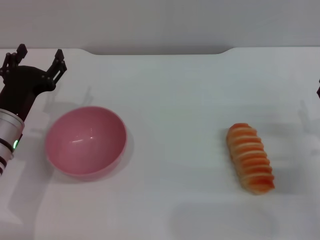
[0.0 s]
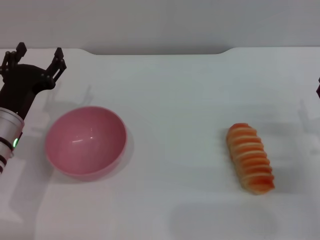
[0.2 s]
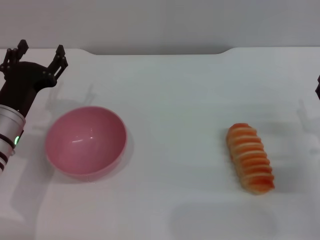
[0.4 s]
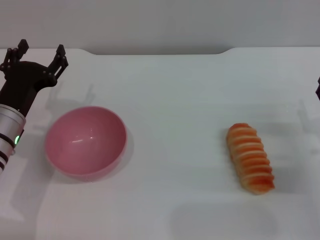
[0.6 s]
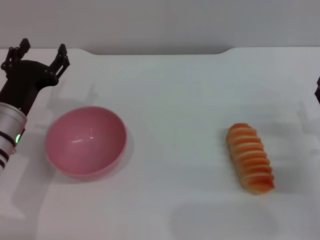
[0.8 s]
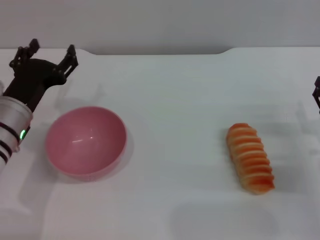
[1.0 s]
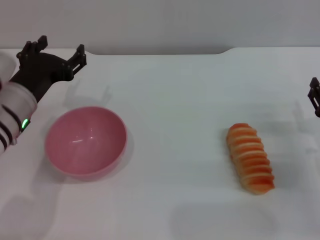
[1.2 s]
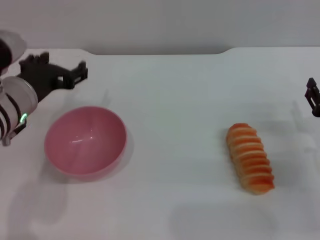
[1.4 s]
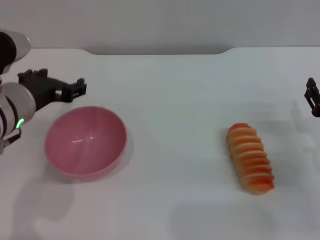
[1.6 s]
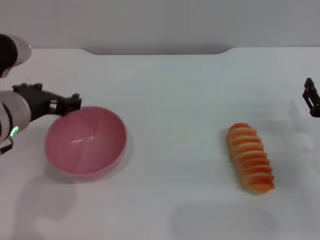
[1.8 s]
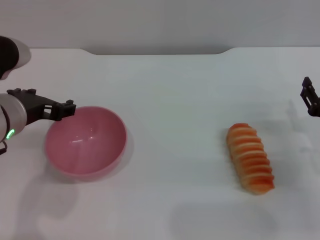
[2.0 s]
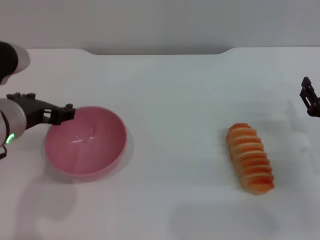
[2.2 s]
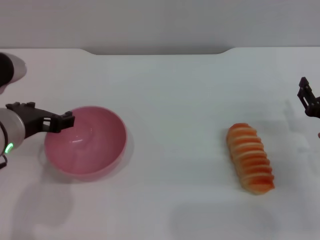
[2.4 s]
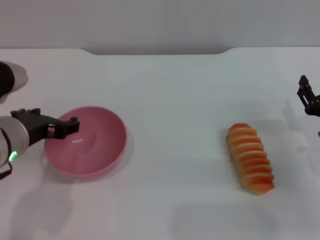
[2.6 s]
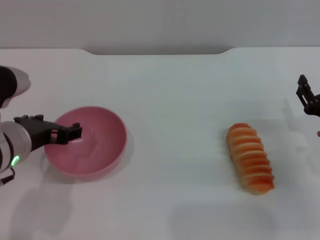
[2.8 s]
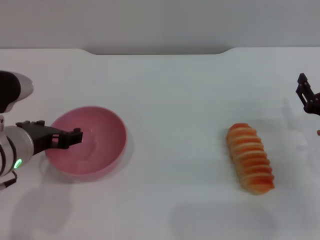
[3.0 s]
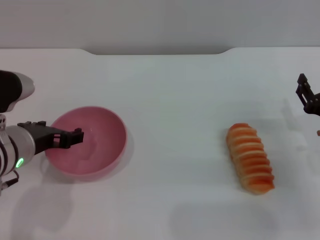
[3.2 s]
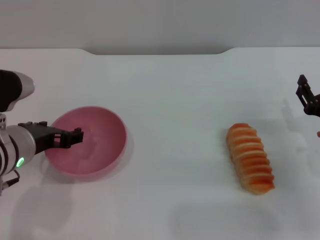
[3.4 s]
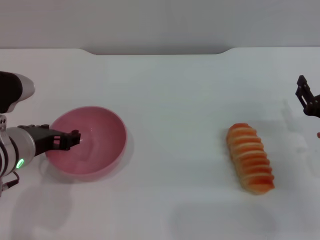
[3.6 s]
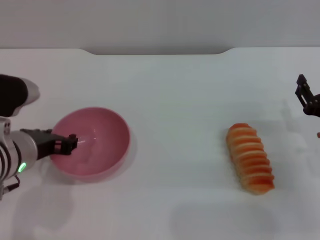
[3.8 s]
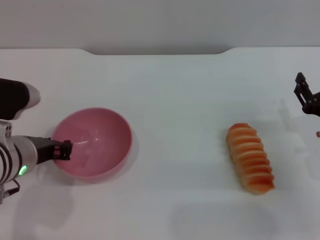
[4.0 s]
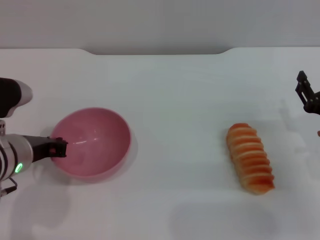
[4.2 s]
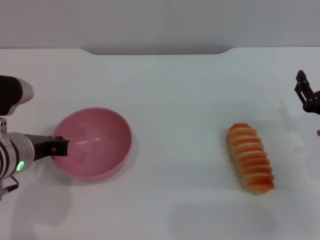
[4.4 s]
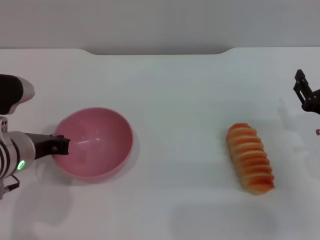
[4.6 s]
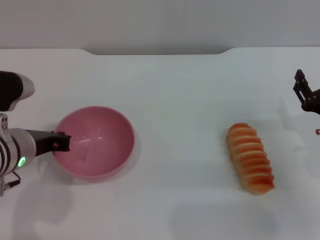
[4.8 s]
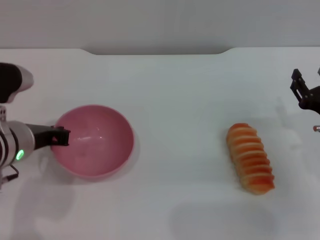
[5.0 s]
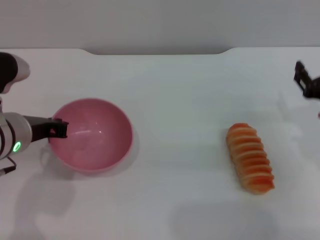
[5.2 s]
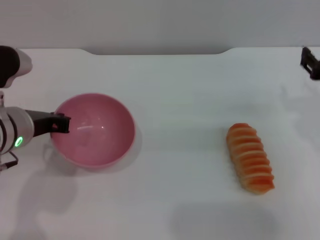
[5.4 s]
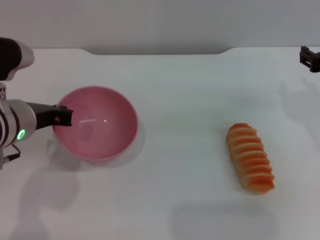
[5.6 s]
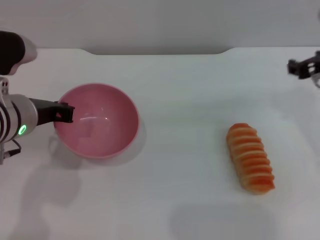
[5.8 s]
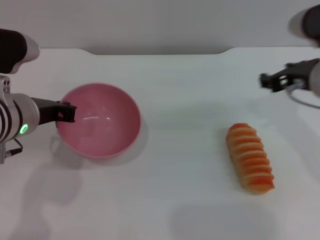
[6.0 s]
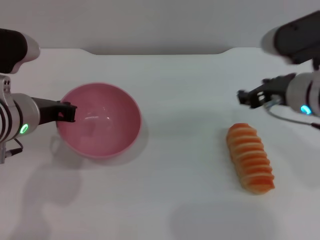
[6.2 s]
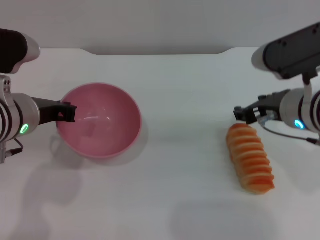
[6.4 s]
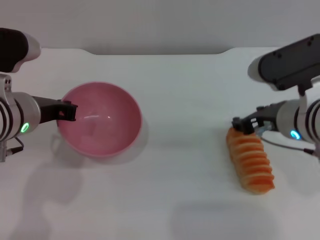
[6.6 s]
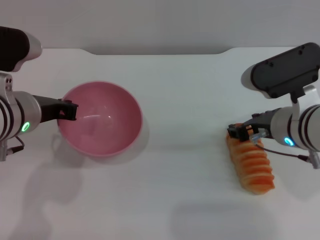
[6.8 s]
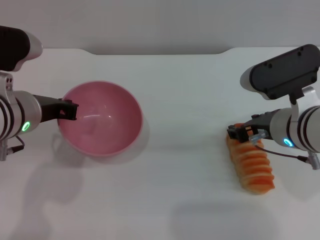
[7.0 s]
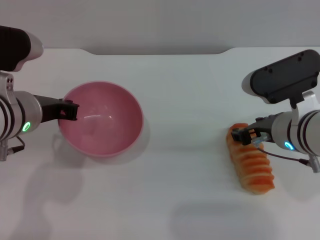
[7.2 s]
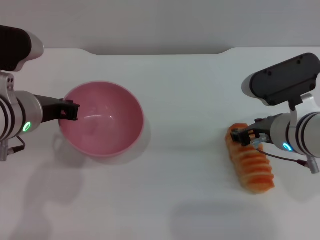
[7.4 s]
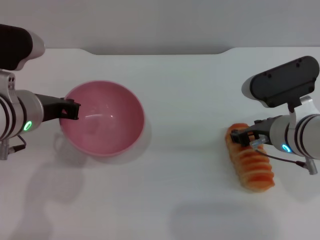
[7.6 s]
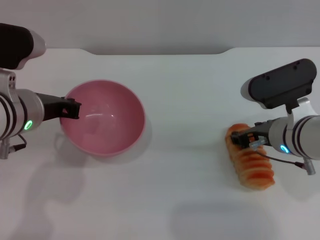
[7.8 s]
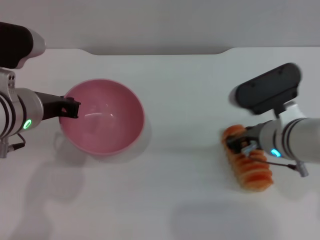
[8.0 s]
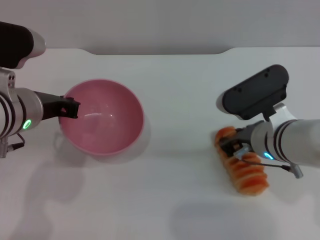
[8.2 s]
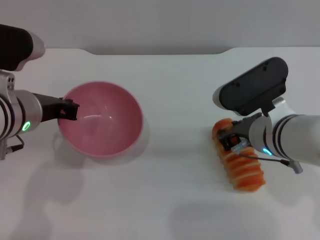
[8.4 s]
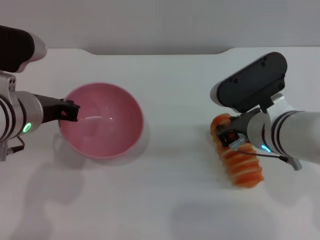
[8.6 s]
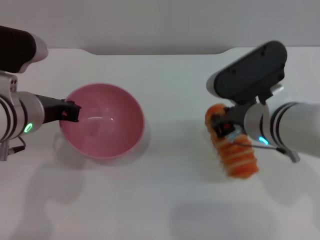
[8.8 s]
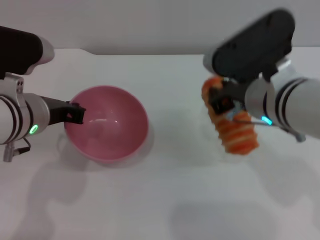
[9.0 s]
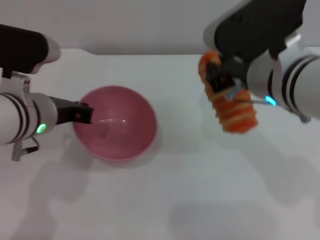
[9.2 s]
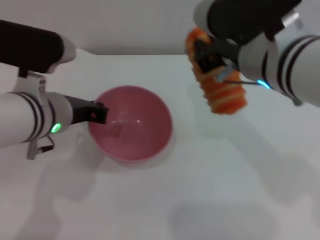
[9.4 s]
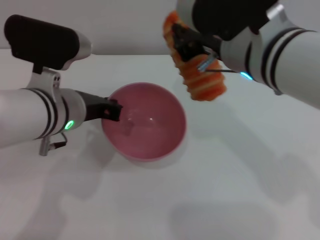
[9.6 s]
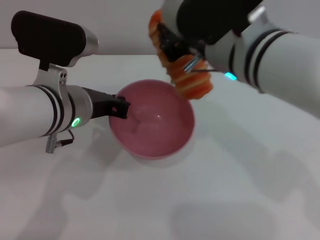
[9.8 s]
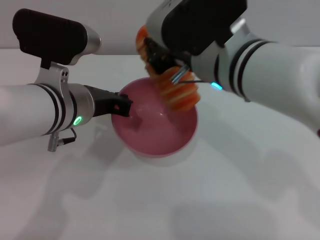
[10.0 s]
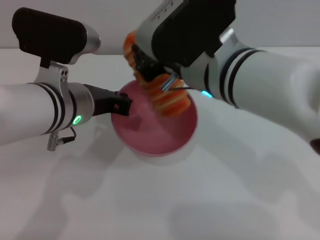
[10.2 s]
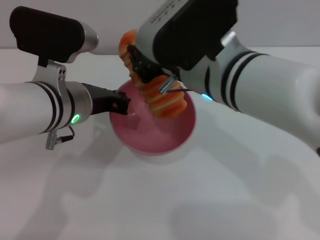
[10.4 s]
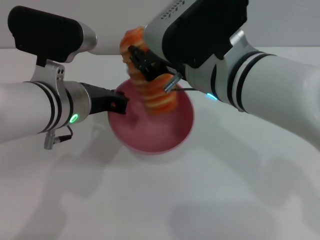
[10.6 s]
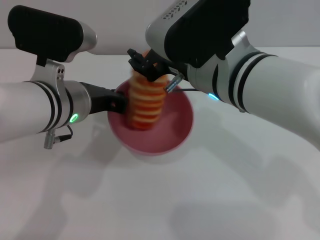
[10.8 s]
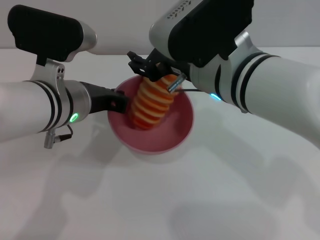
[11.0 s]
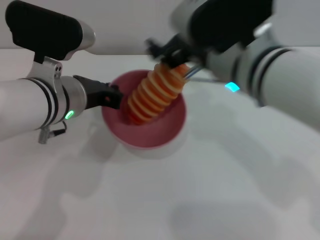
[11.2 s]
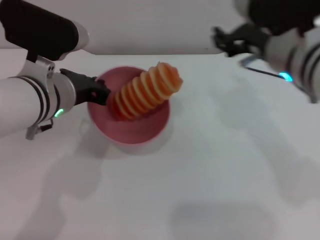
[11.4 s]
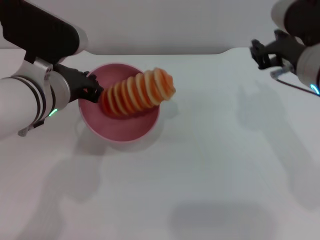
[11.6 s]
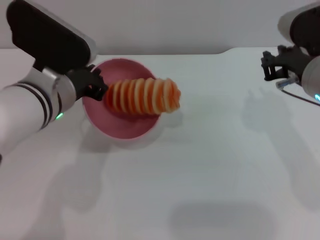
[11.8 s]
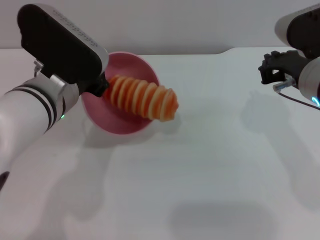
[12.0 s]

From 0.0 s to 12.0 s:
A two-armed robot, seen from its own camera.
Task of the whole recording: put the bread into the pink bowl and pour it out repeatedly.
Step, from 0.0 s to 5.8 s: Pick up the bowl with the left gripper.
Step, from 6.2 s to 9.0 s: Pick up the bread with the right gripper.
Step, from 9.2 s to 11.2 s: Place the bread into the bowl.
From 0.0 s to 1.6 s: The left gripper goes about 10 cm upward.
From 1.6 s to 3.0 s: The grippers stay close to where they were, moving slightly.
From 3.0 s to 4.4 s: The left gripper closes its fingers.
From 4.4 s to 6.0 s: The right gripper moves upward, forward and to the left, approximately 15 cm. The left gripper ends up roughly 5 cm from where it was.
From 6.0 s to 7.6 s: The right gripper travels downward by some 5 cm.
From 7.6 s to 9.0 s: The right gripper moves upward and to the left, about 10 cm, and closes up.
From 9.0 s to 10.4 s: The right gripper is displaced to the left by approximately 5 cm.
From 10.4 s to 12.0 s: The right gripper moves to the right, roughly 15 cm, and opens and closes again.

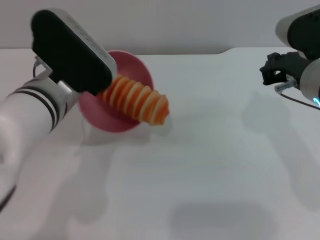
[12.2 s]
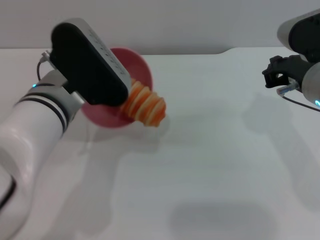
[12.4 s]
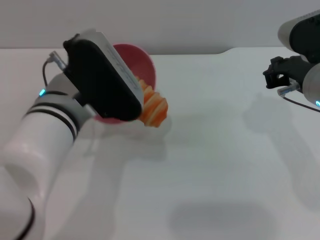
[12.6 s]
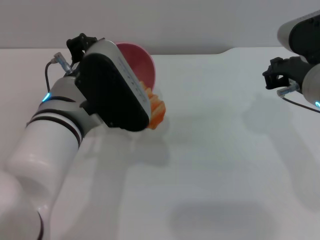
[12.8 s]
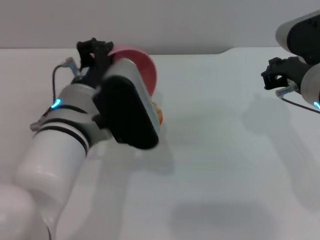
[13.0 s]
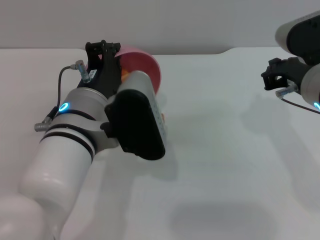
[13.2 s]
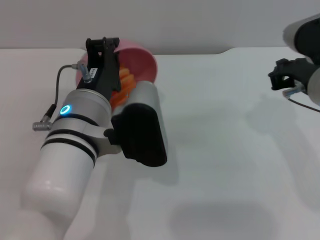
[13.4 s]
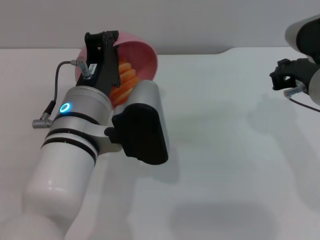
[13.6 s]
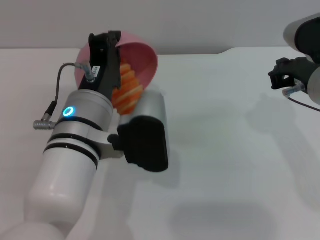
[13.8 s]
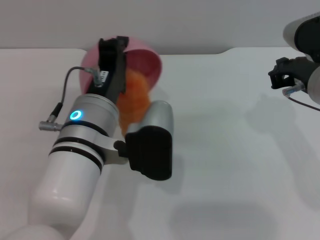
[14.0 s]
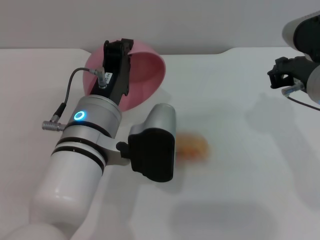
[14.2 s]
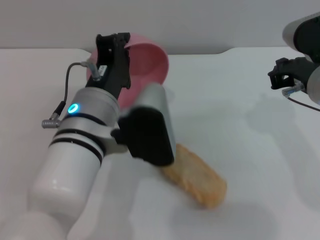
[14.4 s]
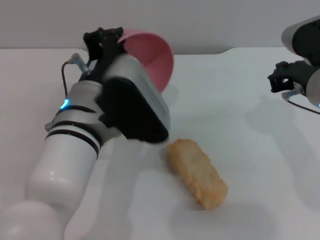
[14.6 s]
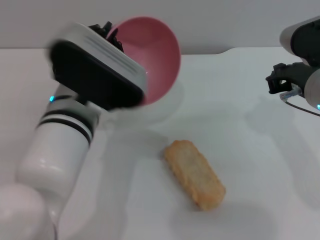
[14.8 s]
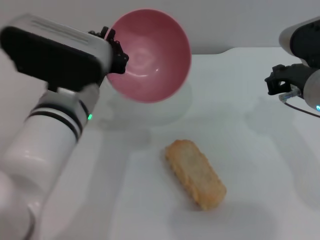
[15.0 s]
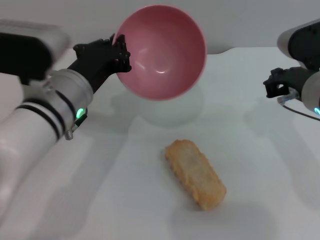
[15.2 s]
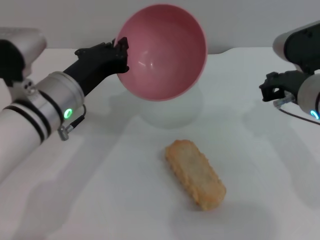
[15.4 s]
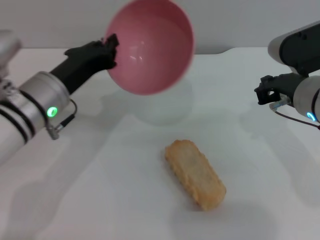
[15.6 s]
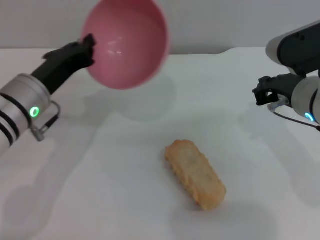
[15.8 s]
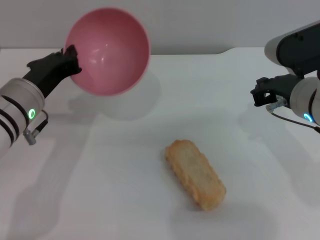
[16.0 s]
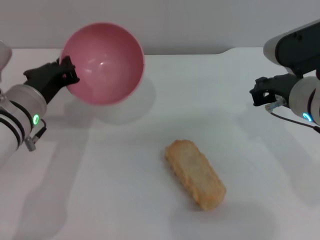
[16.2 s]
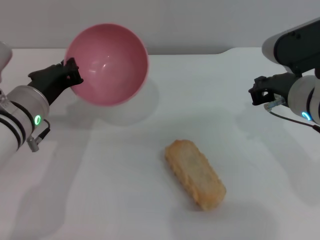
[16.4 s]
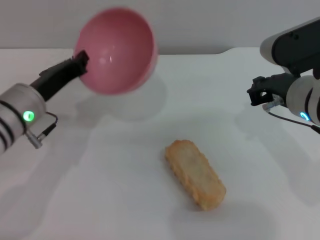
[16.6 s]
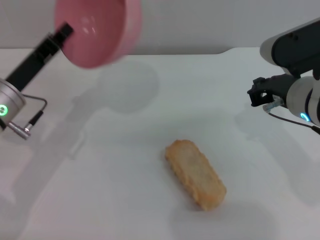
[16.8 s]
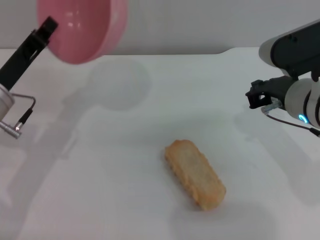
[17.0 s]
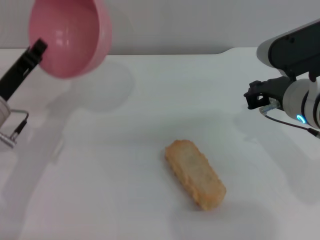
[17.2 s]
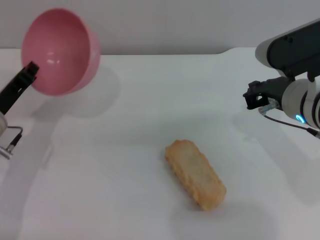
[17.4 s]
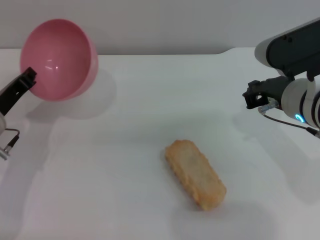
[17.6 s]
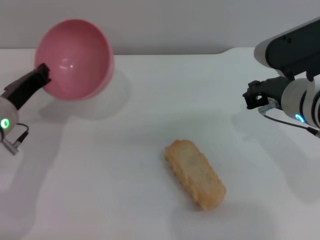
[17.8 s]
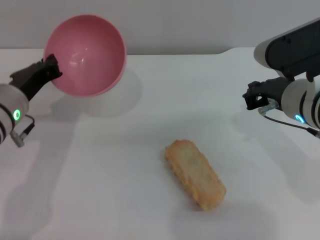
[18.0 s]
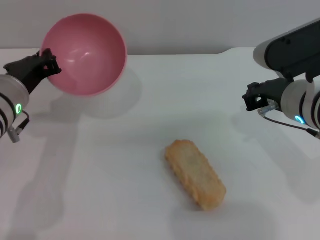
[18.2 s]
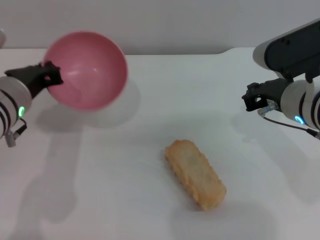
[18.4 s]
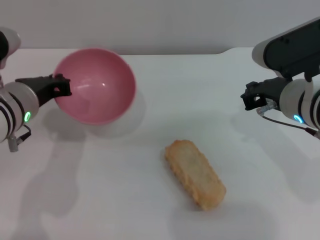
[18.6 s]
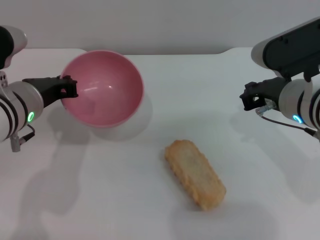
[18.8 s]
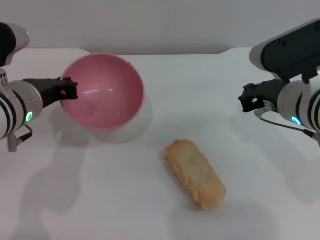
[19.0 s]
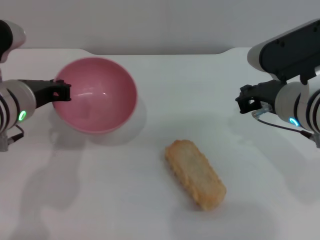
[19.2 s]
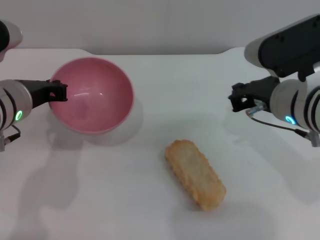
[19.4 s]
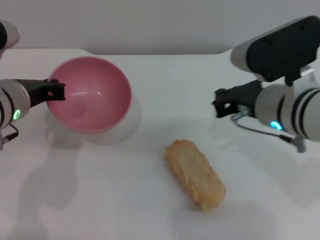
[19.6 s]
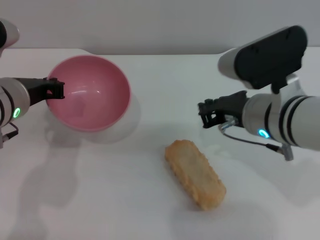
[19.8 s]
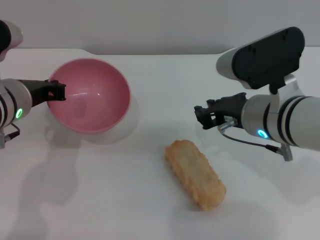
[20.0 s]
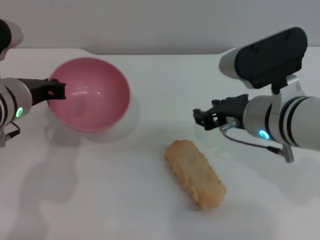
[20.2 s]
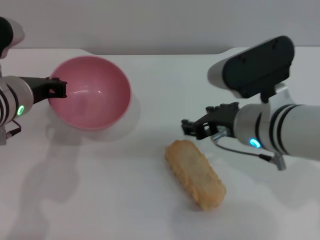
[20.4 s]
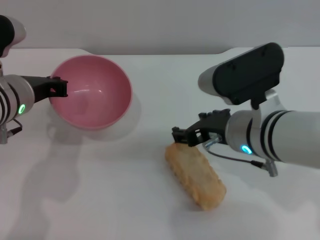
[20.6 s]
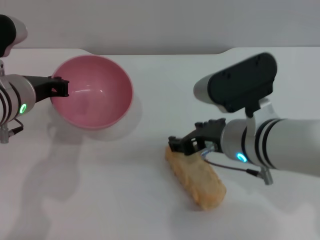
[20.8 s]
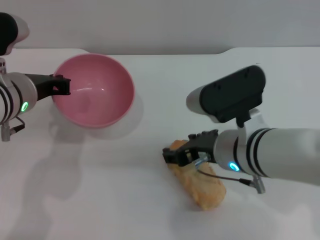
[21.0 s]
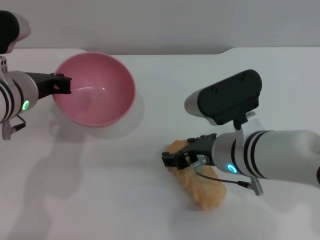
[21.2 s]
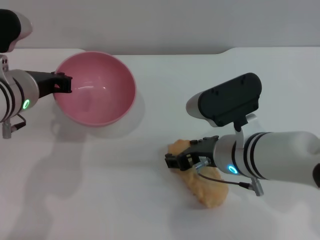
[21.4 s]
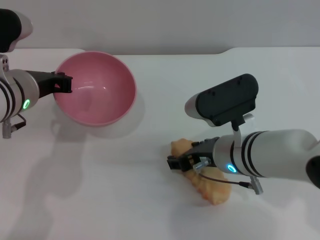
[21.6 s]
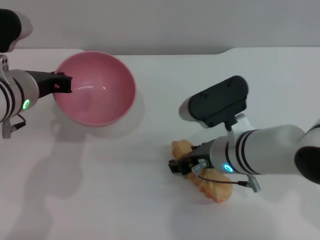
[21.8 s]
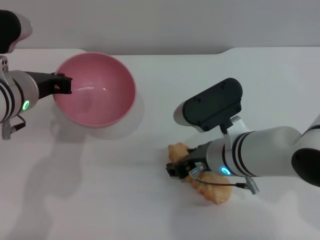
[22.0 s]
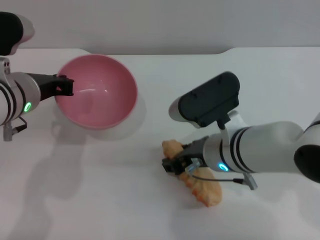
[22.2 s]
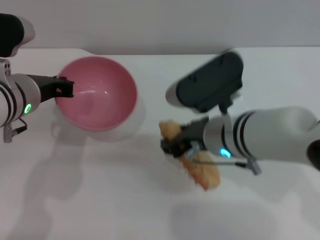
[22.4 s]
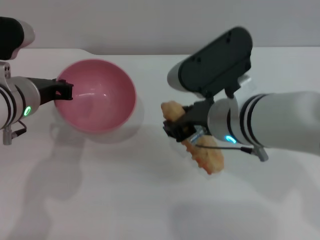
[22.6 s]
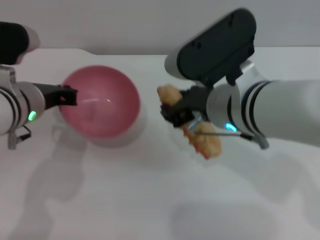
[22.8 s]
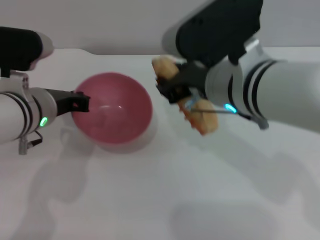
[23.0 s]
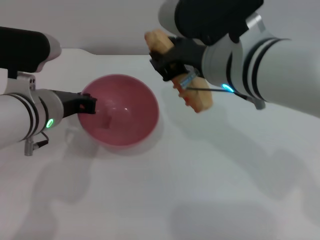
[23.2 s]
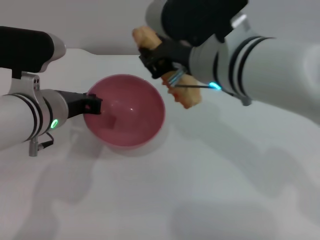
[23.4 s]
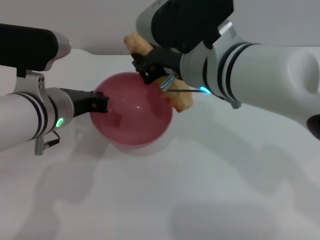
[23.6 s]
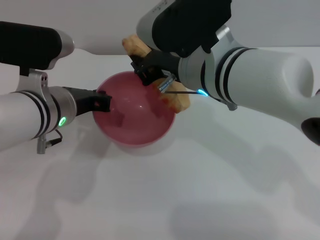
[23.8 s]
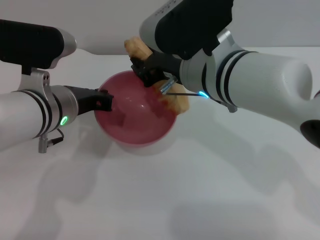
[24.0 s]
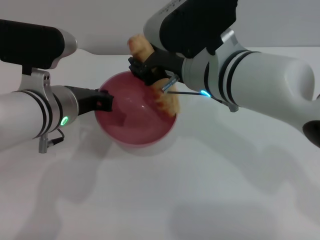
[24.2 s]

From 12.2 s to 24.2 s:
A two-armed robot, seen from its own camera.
Task of the whole recording: put the bread into the pink bowl and pour it out repeatedly.
Step, from 12.2 s to 14.6 s: Pour the bread out of the bowl.
Step, from 14.8 s to 23.0 s: Pick up the bread with the right gripper.
From 12.2 s to 13.8 s: The left gripper shifts by approximately 5 cm.
From 13.8 s to 15.2 s: The left gripper ends up approximately 5 cm from where it was.
From 15.2 s to 16.6 s: The left gripper is displaced to the left by some 5 cm.
From 19.8 s to 21.2 s: The right gripper shifts by approximately 5 cm, and opens.
From 21.2 s to 22.6 s: The right gripper travels upward by some 5 cm.
From 22.6 s to 24.2 s: The right gripper shifts by roughly 5 cm.
